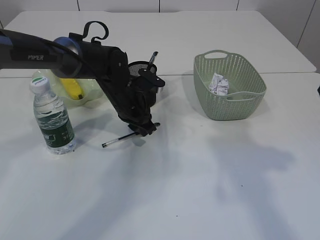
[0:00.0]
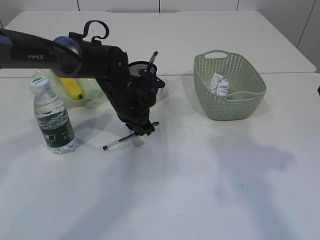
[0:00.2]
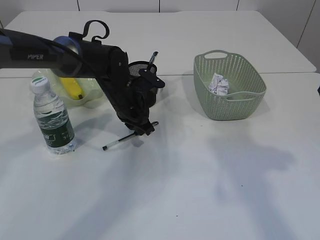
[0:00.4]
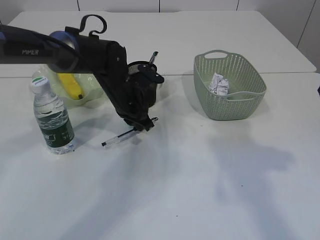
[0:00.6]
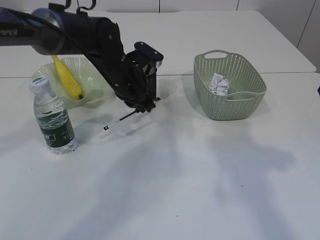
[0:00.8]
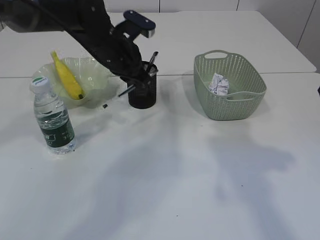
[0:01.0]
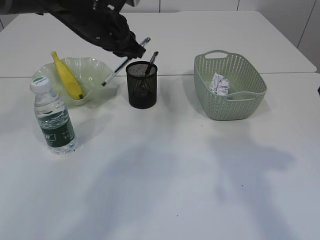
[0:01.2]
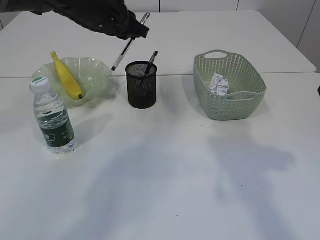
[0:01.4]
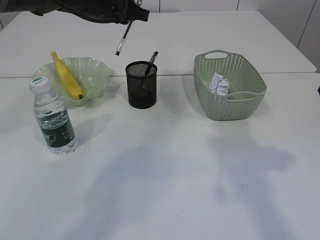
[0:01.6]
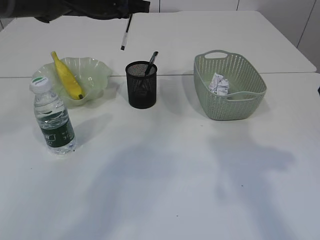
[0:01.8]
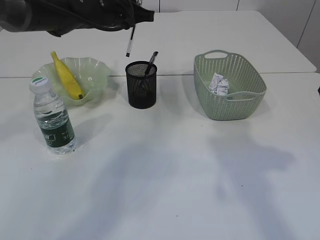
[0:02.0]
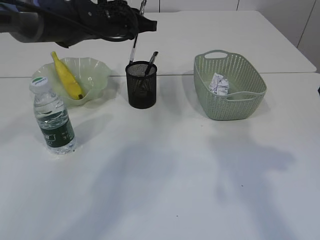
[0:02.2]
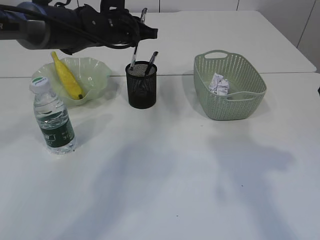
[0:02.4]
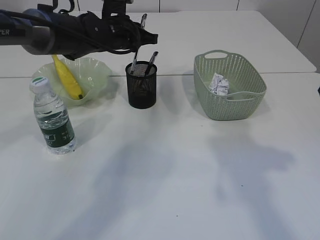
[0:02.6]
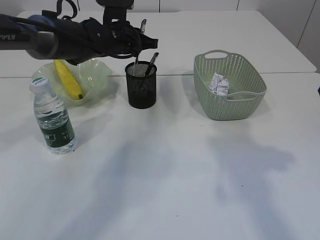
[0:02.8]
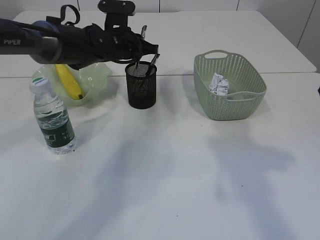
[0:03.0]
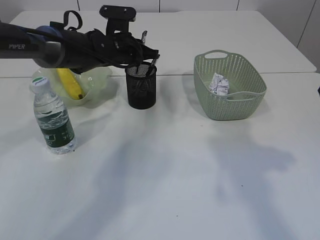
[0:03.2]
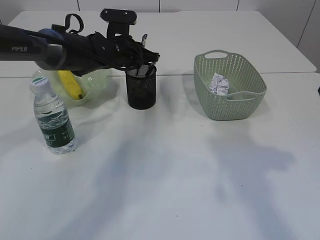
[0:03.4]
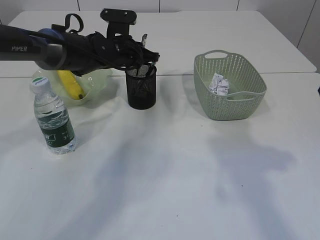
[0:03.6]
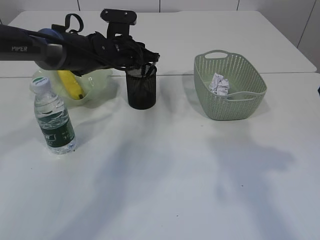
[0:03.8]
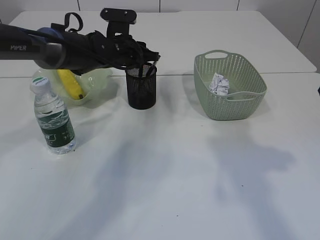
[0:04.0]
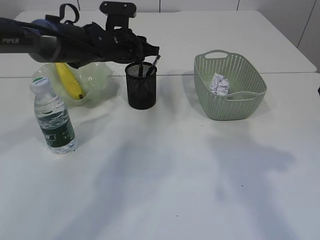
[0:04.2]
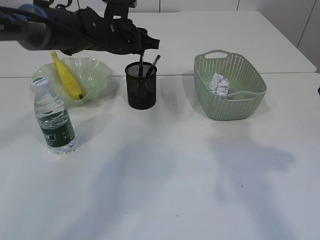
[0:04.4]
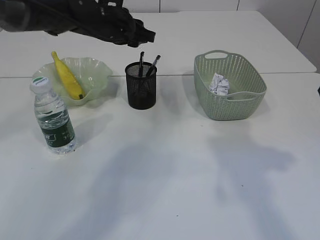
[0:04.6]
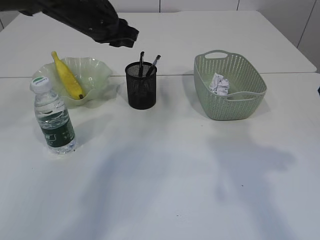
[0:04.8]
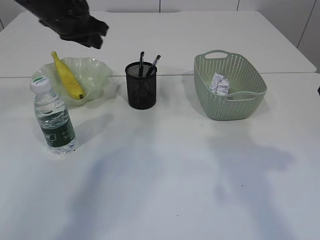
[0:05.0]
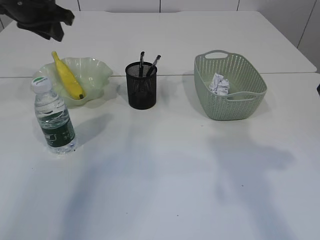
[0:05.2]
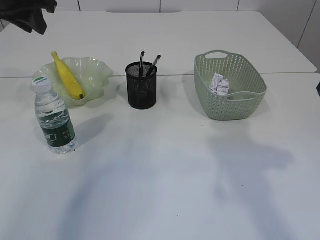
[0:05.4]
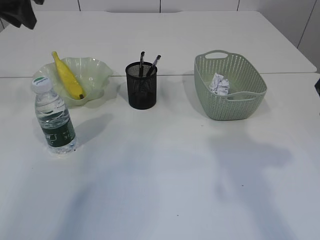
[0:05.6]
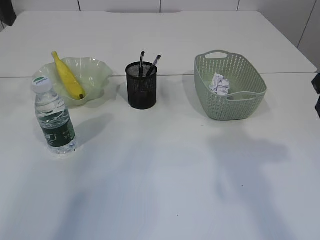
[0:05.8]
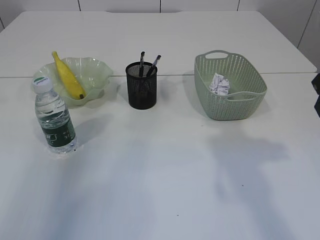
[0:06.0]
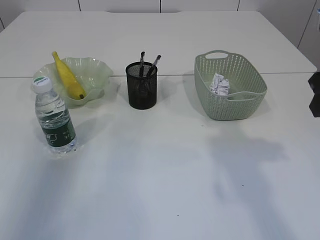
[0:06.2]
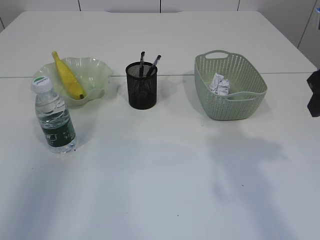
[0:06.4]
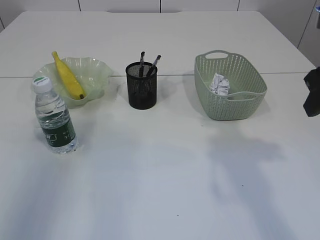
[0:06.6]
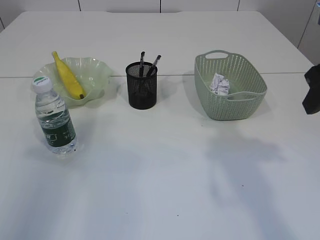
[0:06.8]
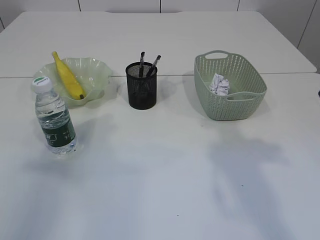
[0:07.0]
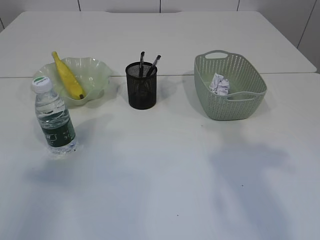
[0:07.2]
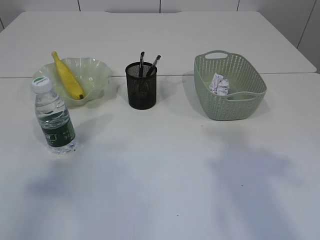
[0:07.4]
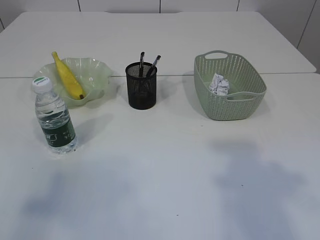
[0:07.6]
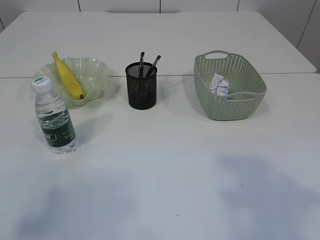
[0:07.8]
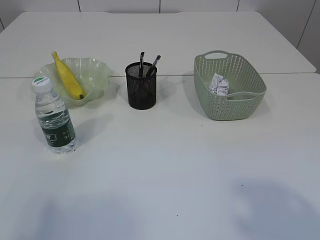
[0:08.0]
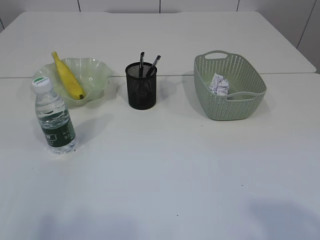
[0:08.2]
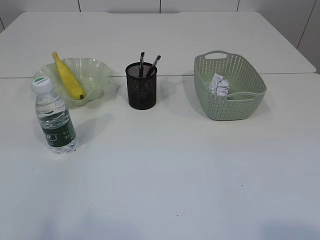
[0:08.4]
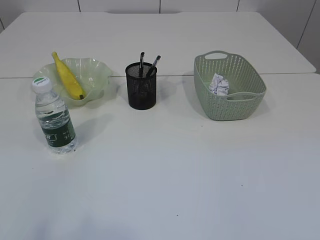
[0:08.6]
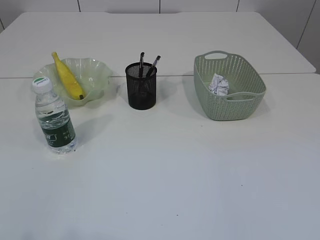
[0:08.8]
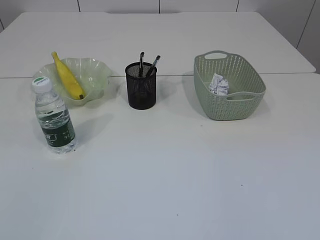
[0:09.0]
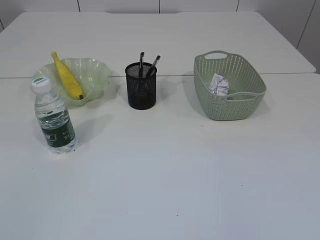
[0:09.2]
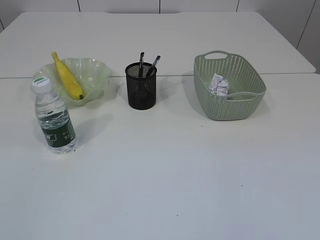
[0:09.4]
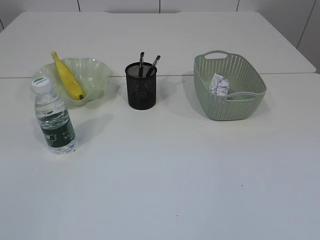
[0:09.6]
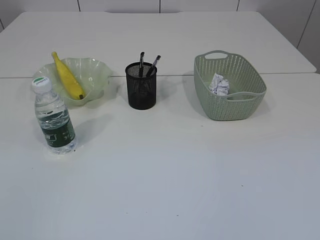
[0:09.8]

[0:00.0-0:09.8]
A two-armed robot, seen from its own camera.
Step, 0:01.0 to 0:04.6: Place the pen into the pen holder.
0:00.0 to 0:01.4: The left gripper moves upward, approximately 15 cm.
0:01.4 to 0:02.8: The left gripper moves downward, about 5 cm.
0:02.8 to 0:04.2: The grippers move only a little.
0:04.2 to 0:05.6: The left gripper is displaced upward, to the left and backward by roughly 25 cm.
0:05.6 to 0:07.0: The left gripper shifts some 25 cm backward and to the left.
0:07.0 to 0:08.4: The left gripper goes about 20 cm backward, and opens.

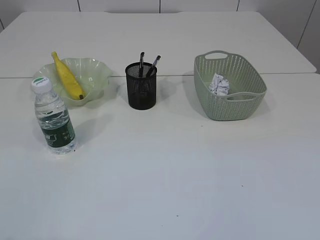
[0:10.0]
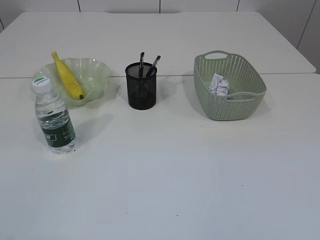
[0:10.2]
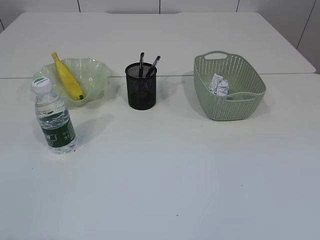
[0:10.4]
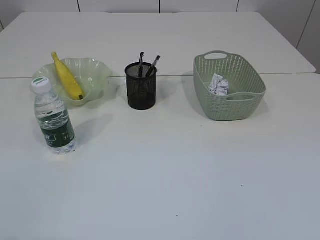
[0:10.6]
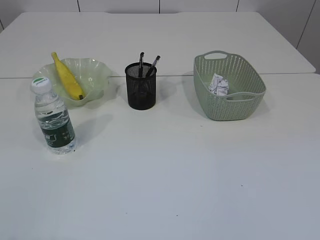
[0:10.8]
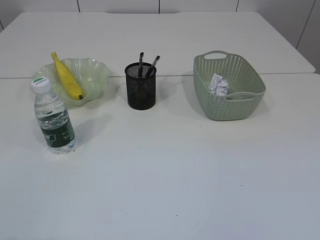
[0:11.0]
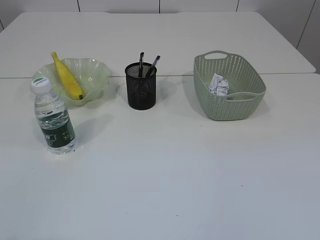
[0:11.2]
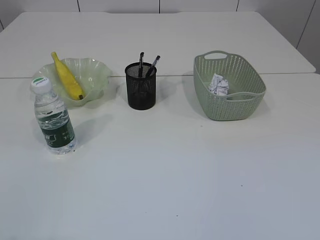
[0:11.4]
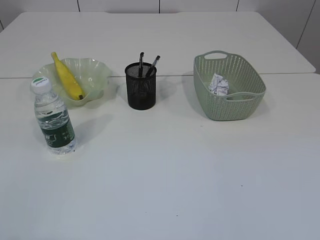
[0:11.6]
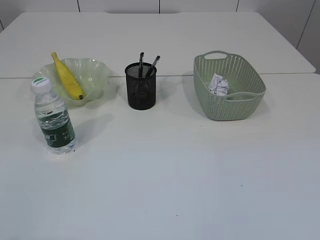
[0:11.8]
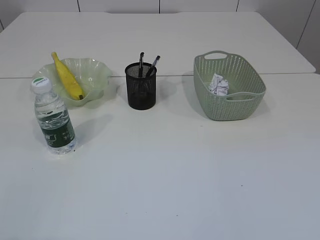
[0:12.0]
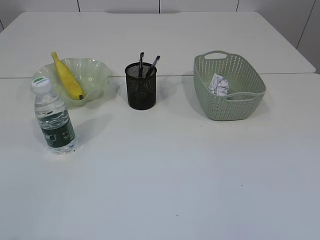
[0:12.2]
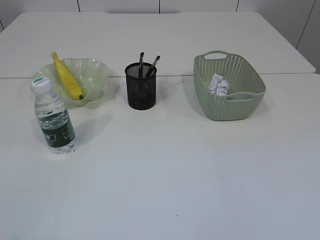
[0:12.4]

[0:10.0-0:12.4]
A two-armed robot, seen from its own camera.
0:10.0 to 0:11.2: Both grippers stay about where they are.
